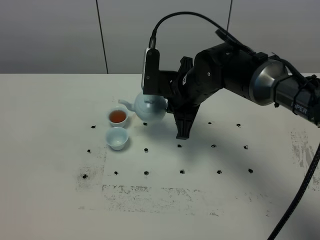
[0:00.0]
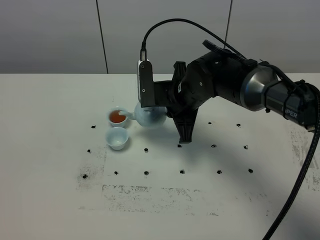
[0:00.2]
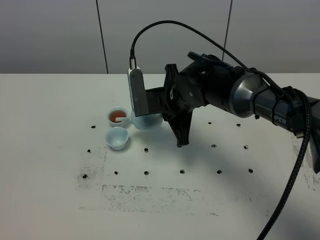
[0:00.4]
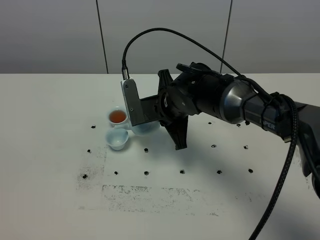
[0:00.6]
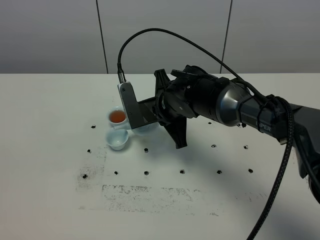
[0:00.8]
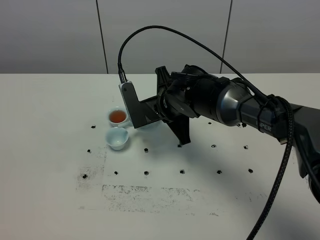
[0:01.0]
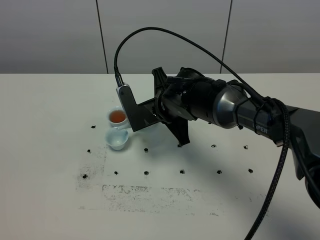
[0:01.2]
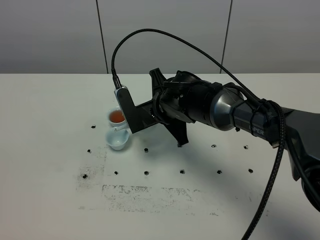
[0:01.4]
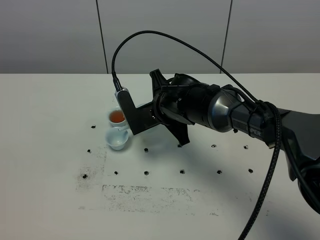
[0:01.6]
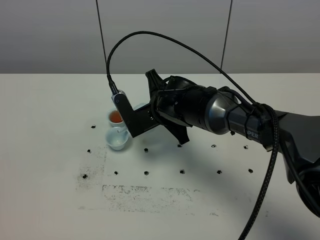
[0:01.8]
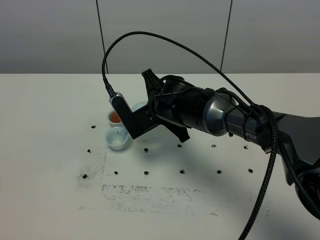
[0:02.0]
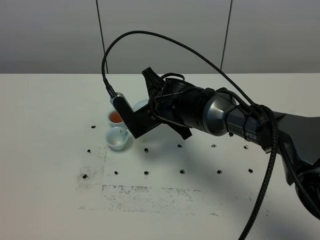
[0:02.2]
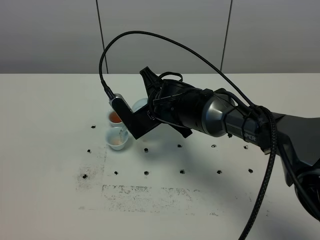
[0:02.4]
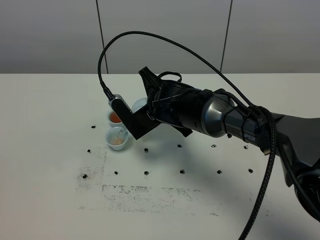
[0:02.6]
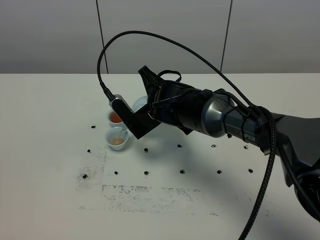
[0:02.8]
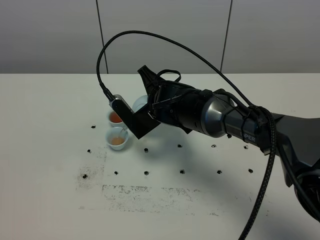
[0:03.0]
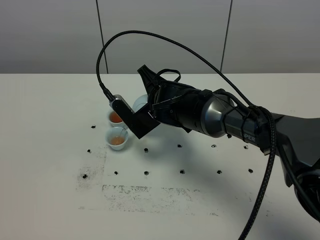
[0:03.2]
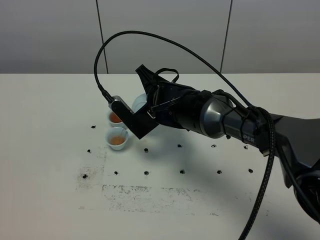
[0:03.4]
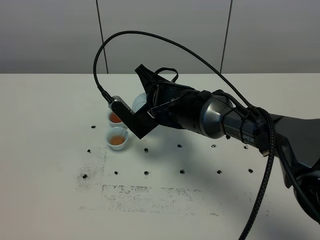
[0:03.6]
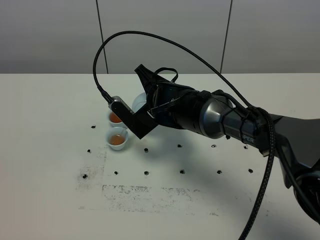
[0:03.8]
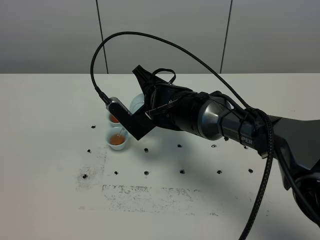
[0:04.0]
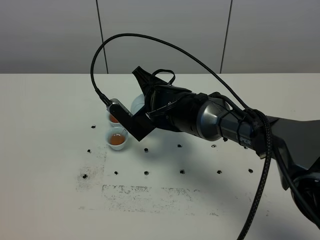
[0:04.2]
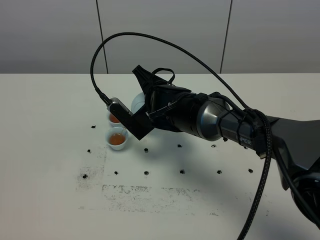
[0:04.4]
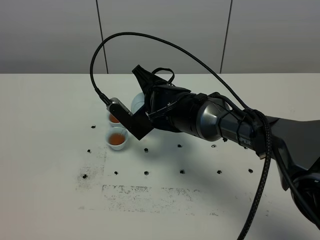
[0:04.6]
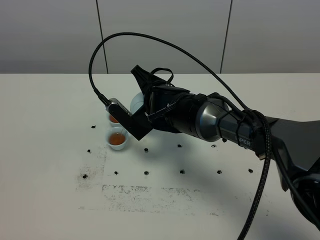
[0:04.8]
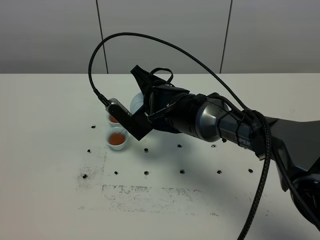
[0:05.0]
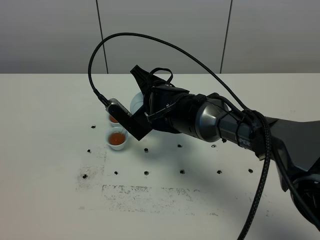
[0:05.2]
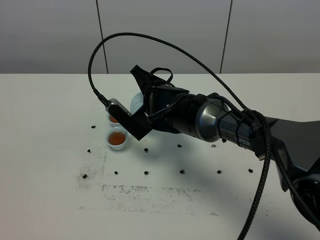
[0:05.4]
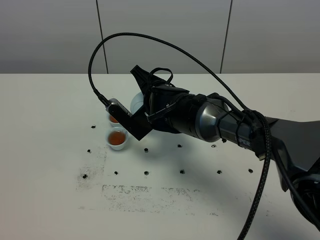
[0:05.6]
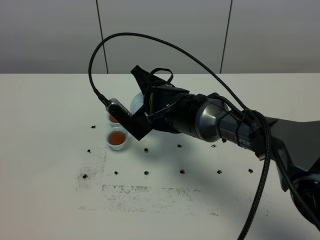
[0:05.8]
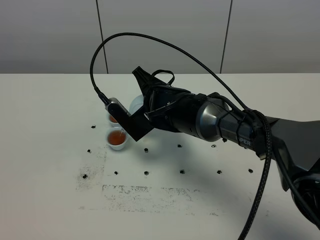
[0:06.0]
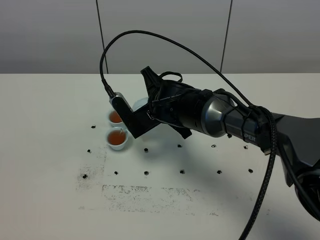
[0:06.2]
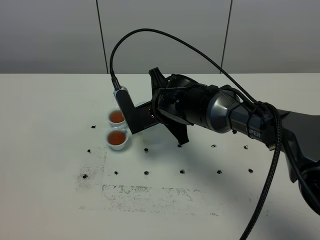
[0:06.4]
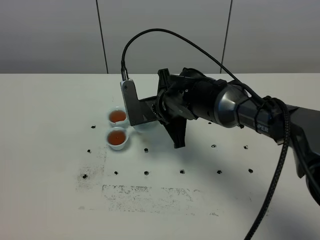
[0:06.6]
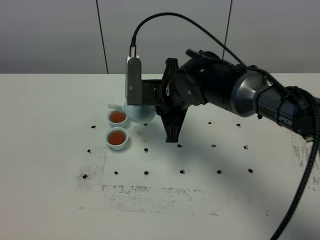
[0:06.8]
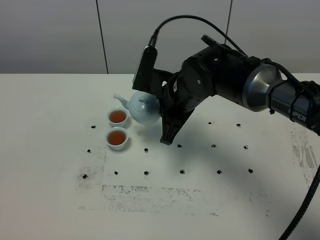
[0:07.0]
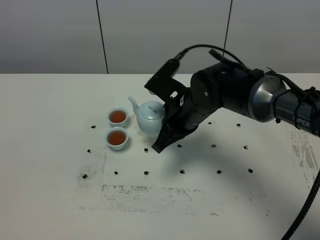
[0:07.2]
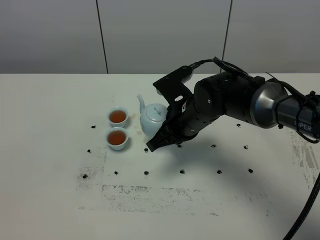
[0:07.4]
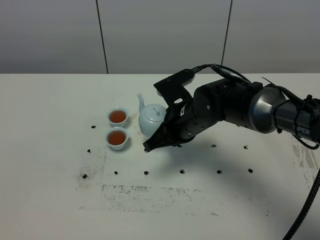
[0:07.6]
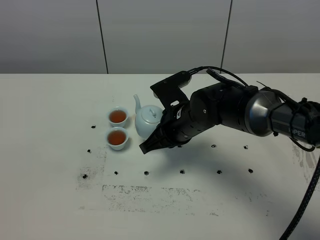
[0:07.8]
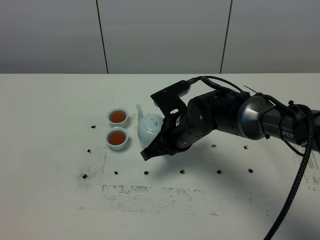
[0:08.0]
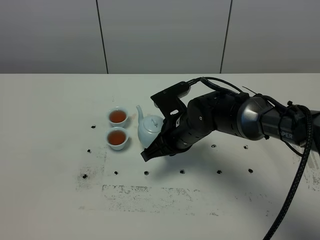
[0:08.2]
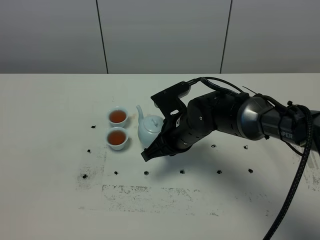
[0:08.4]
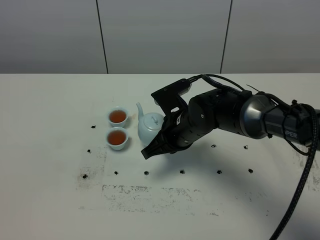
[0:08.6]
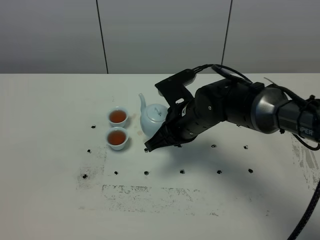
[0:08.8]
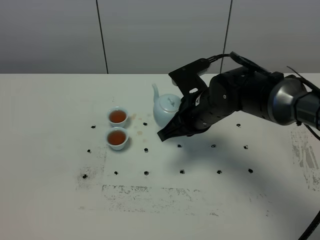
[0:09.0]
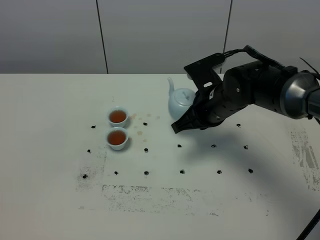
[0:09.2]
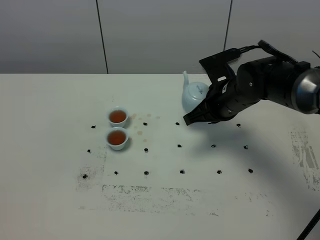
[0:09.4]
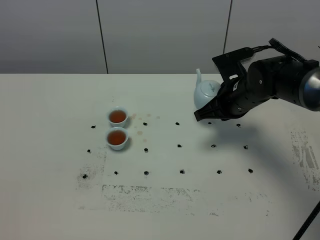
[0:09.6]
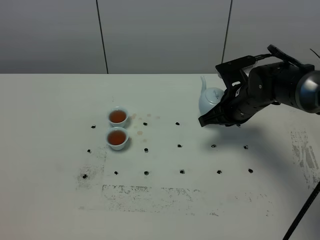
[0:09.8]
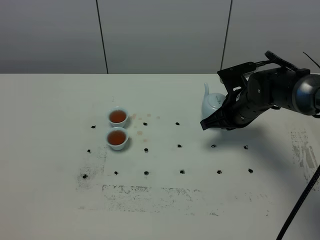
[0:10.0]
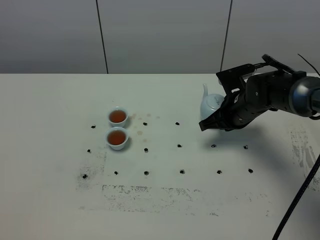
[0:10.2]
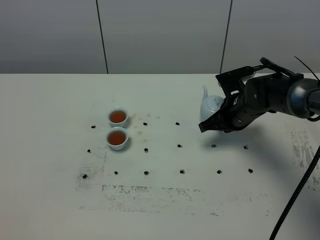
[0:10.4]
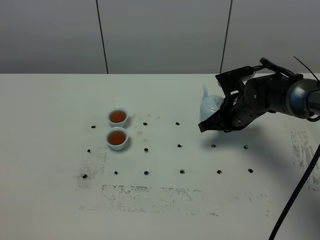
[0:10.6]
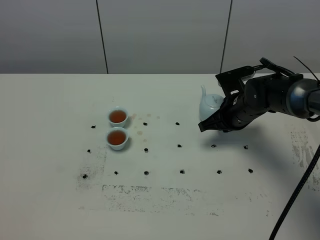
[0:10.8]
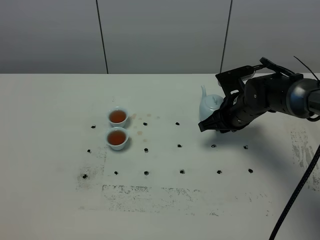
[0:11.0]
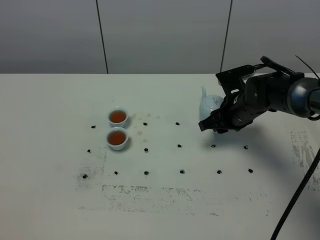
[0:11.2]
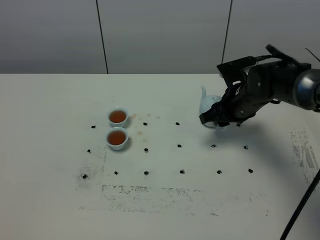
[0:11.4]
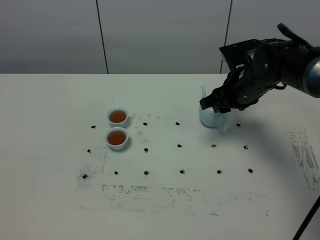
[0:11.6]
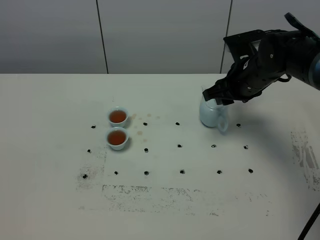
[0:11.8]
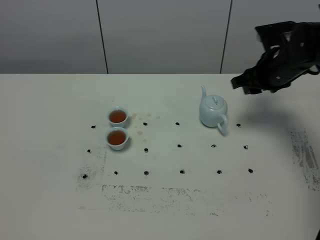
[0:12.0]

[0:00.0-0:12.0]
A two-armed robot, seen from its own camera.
Task of the whole recording: grasp the blue porcelain teapot and pour the tea into the two blue porcelain teacups one by one, put the blue porcelain teapot back in its original place.
Step, 0:00.0 to 0:06.6: Pour tea into the teacup with the right gripper.
0:00.0 to 0:01.6: The right gripper ends up some 5 cm from where it was.
0:01.6 to 0:03.0: There are only small adjustments of the grippers.
0:03.0 to 0:04.4: There are only small adjustments of the grippers.
0:04.4 to 0:06.0: The two grippers keep their place.
0:06.0 to 0:07.6: The right gripper moves about 5 cm.
0:07.6 to 0:09.0: There are only small adjustments of the grippers.
0:09.0 to 0:10.4: The right gripper is displaced to the right, downward and forward by about 10 cm.
0:10.4 to 0:12.0: The right gripper moves upward and to the right, roughly 15 cm, and opens its fingers.

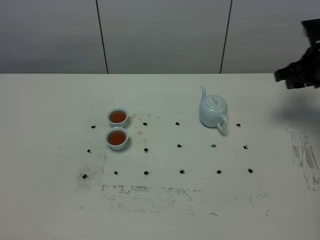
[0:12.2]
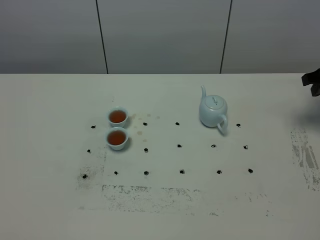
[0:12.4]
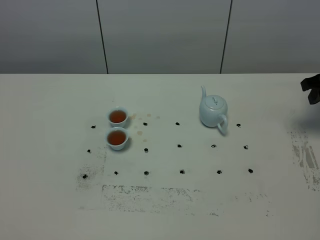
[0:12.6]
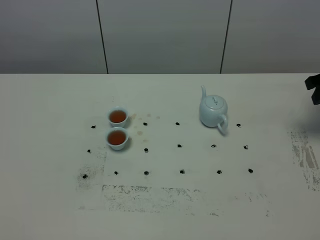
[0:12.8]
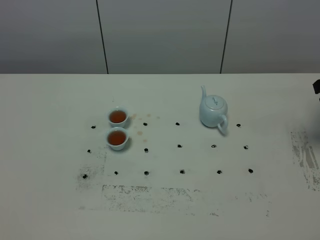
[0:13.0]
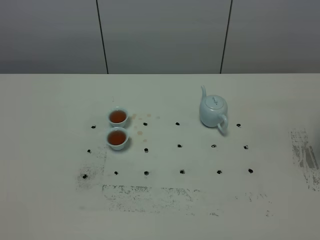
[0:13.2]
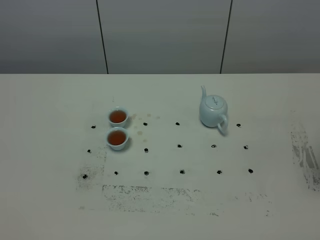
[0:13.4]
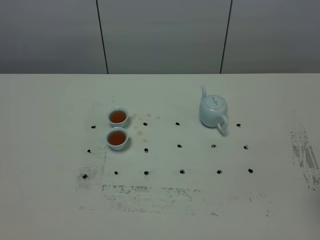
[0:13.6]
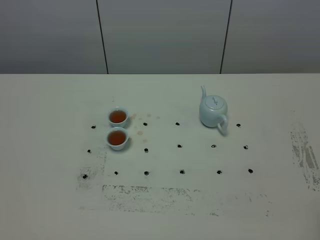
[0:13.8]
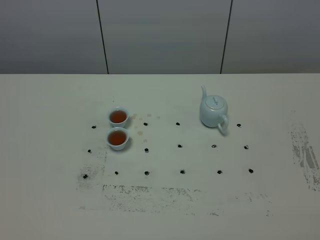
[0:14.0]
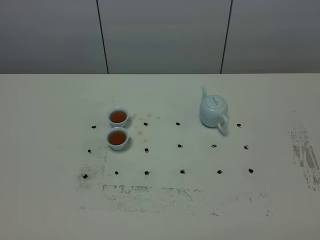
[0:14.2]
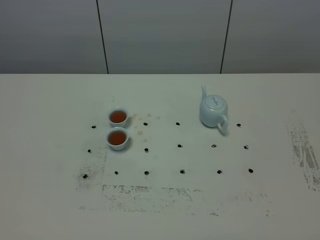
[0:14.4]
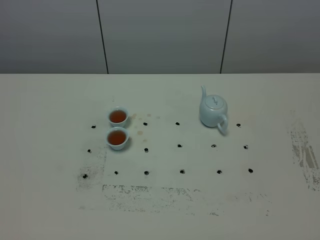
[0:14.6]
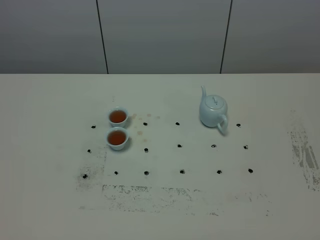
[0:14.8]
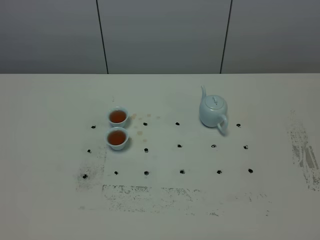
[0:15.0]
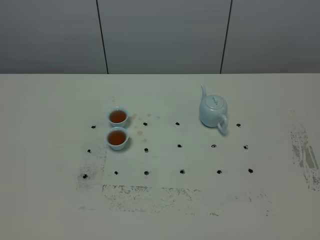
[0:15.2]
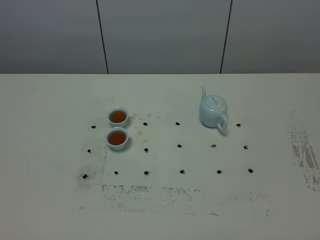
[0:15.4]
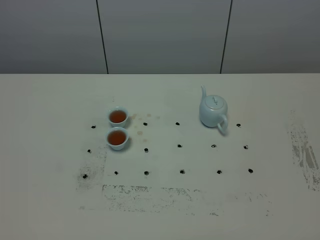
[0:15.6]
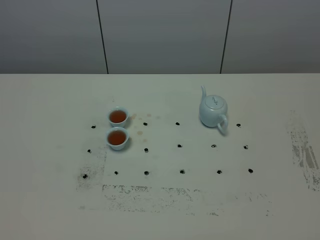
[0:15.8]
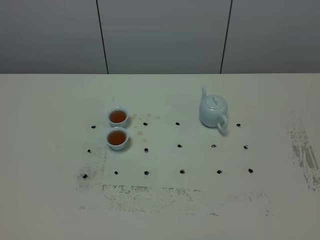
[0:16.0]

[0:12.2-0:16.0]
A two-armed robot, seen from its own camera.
Task of the whole recording: grasp the blue porcelain teapot and pour the tea into the two blue porcelain teacups one by one, put the blue porcelain teapot back in its original place.
0:12.2 to 0:13.4: The right gripper shifts about 20 cm backward and upward.
0:14.8 to 0:16.0: Neither gripper changes place.

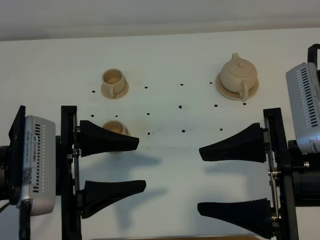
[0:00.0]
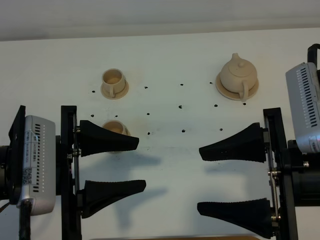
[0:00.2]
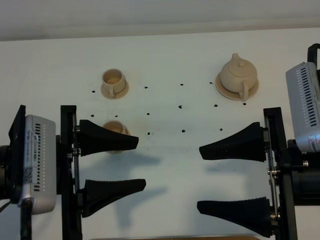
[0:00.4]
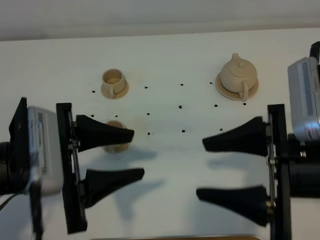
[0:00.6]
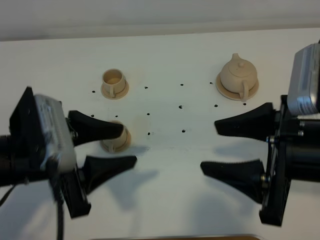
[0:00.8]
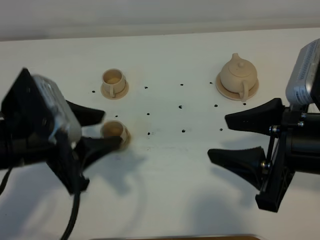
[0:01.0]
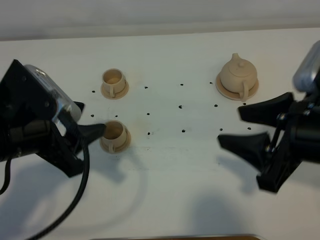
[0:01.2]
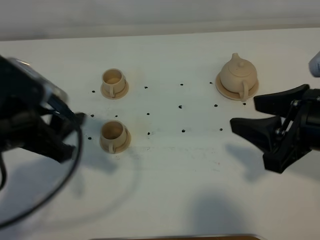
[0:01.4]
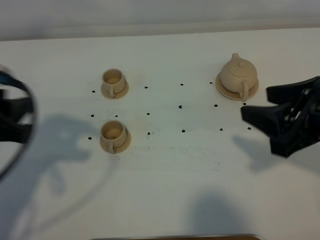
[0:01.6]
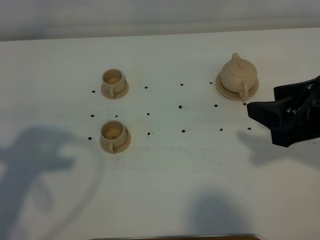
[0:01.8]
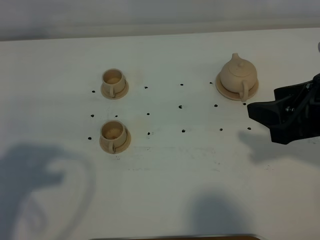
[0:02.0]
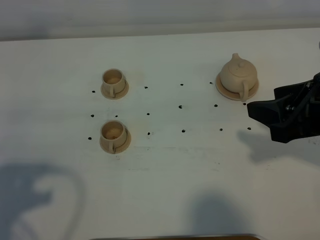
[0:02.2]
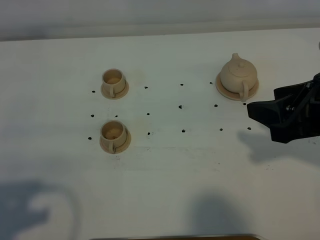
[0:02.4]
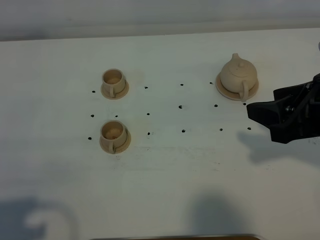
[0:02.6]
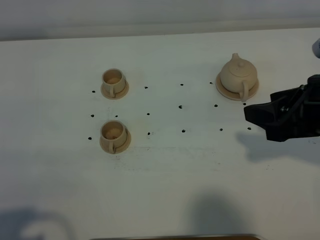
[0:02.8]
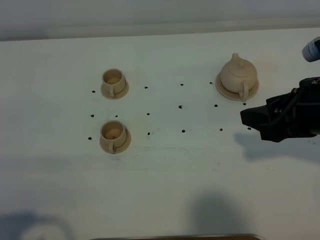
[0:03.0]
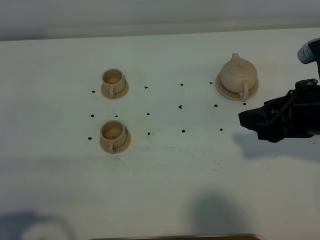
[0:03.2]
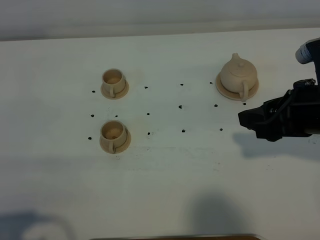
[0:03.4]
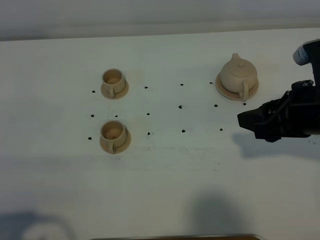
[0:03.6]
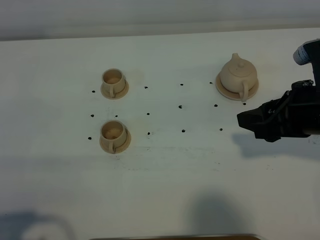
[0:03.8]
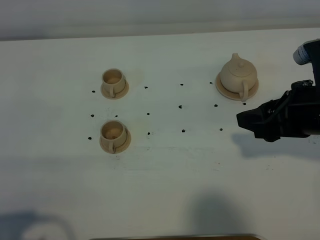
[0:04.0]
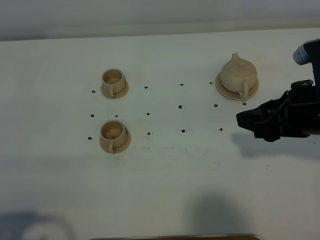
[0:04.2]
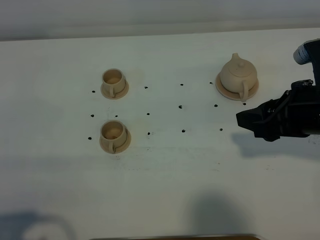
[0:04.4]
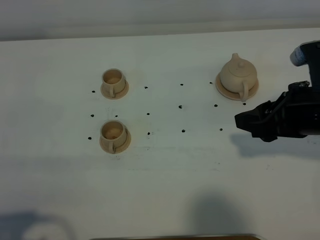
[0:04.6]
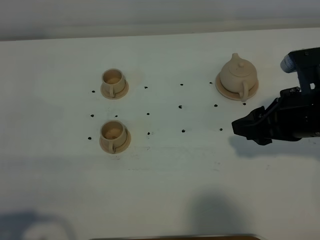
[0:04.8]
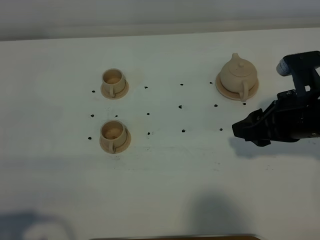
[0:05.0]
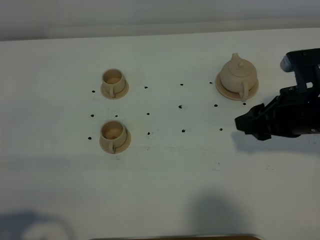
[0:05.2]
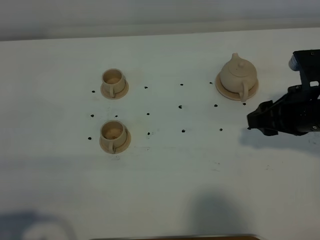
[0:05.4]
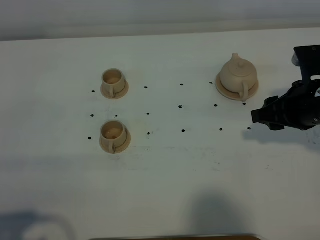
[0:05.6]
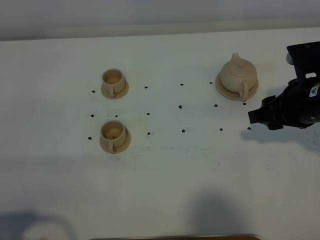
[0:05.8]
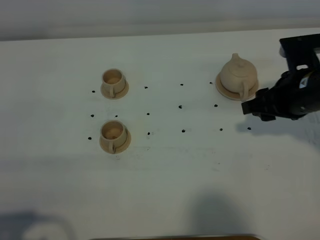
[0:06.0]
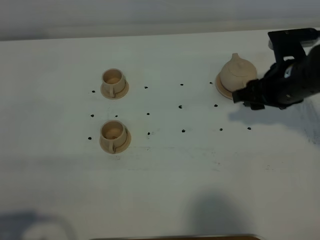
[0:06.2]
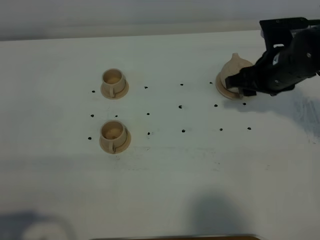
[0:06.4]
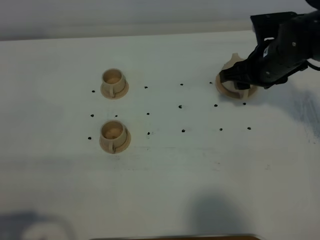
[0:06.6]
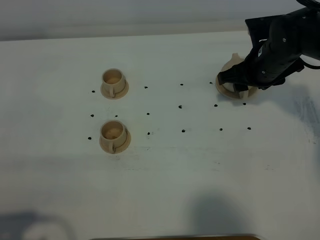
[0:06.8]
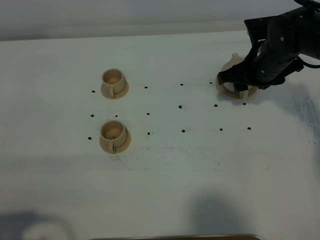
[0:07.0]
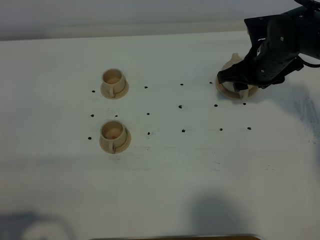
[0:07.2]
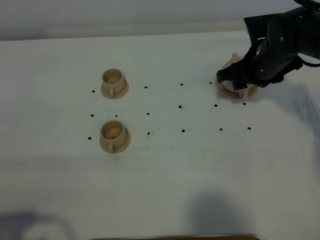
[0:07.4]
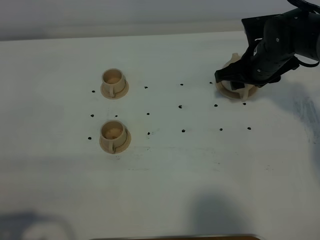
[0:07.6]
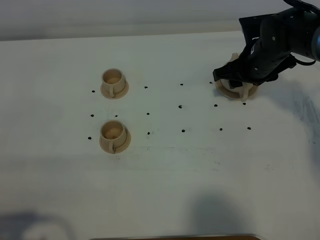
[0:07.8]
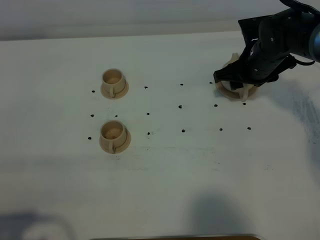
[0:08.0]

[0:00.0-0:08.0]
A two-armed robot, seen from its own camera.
Task of the whole recording: grasp the brown teapot and pour the tea into the two brown teacups one by one, put the brown teapot back in its original place.
0:00.0 to 0:01.6: The left gripper travels to the left by about 10 cm, and closes up. The right gripper moves forward, roughly 5 cm.
0:01.6 to 0:03.2: The left gripper heads backward, covering approximately 15 cm, and closes up.
0:03.2 to 0:04.8: The grippers make only small movements.
0:04.8 to 0:06.4: The right gripper is displaced forward by about 10 cm.
0:06.4 to 0:08.0: The right gripper travels forward by some 5 cm.
